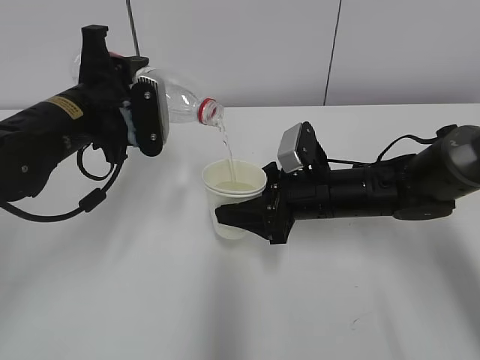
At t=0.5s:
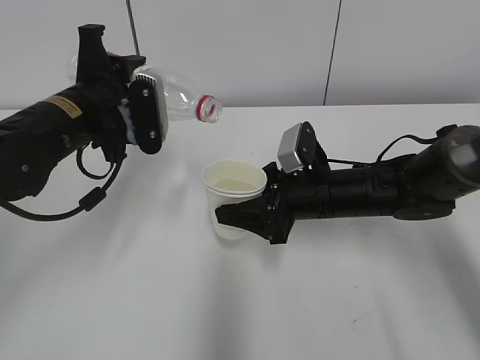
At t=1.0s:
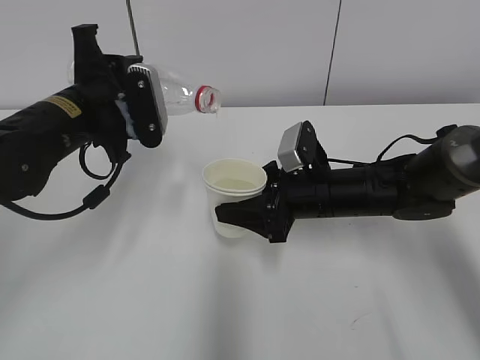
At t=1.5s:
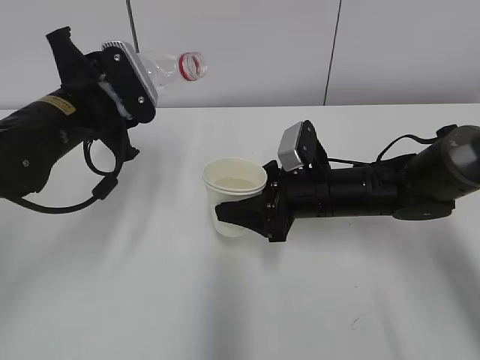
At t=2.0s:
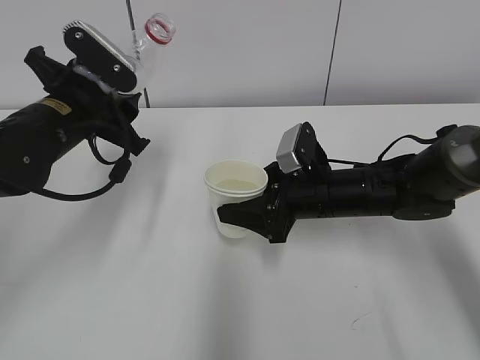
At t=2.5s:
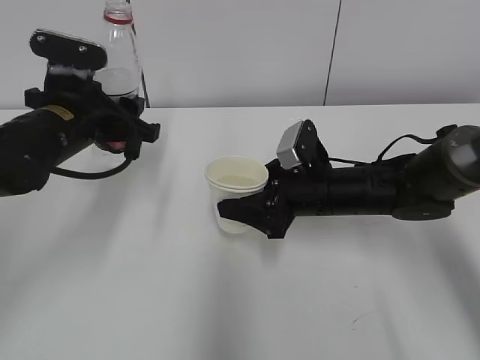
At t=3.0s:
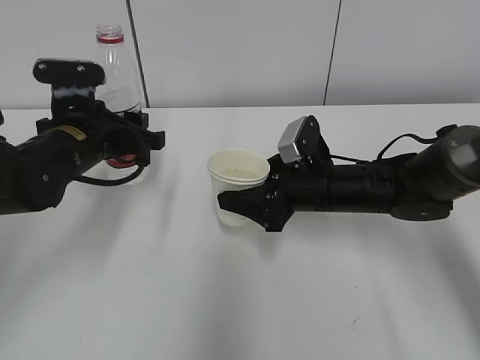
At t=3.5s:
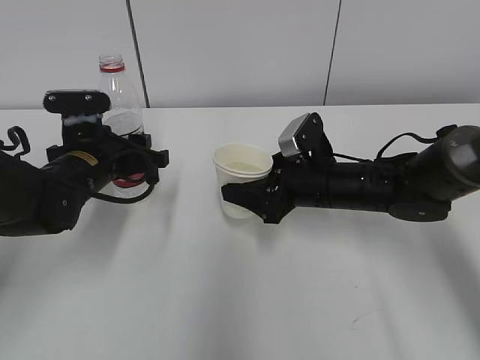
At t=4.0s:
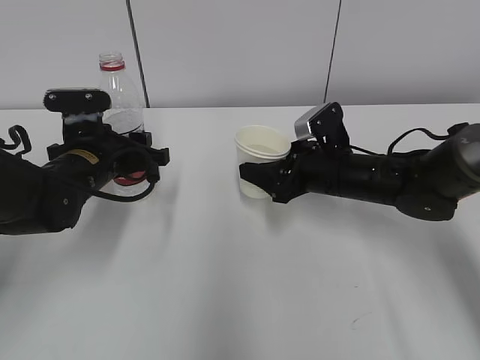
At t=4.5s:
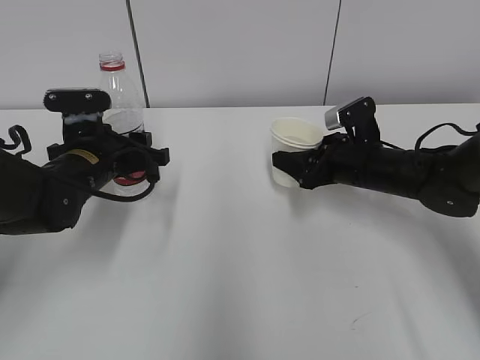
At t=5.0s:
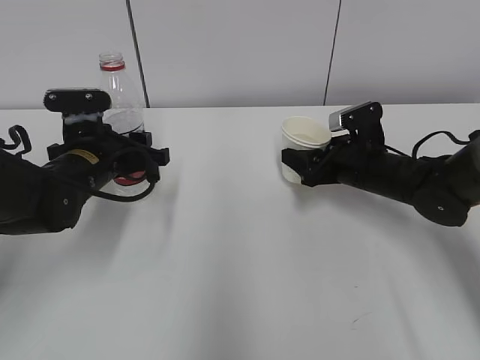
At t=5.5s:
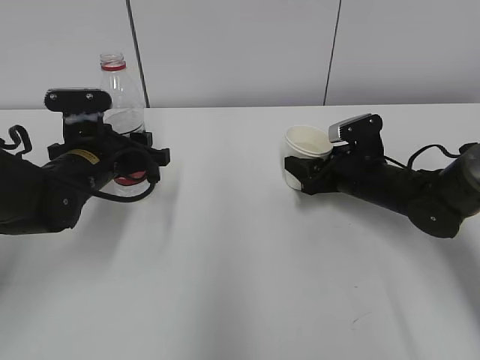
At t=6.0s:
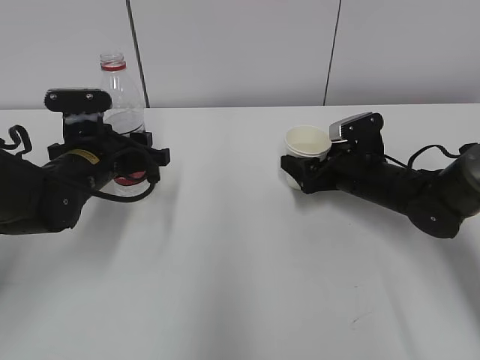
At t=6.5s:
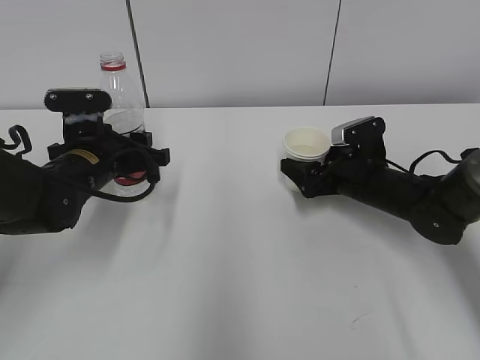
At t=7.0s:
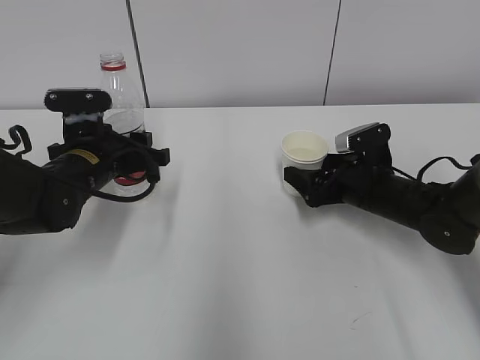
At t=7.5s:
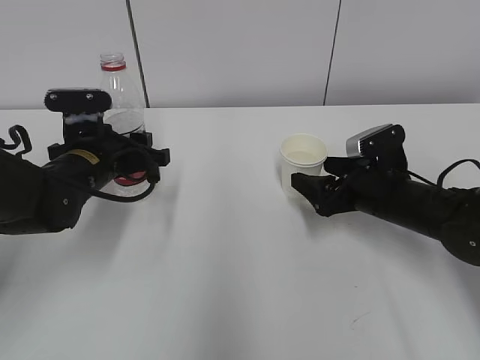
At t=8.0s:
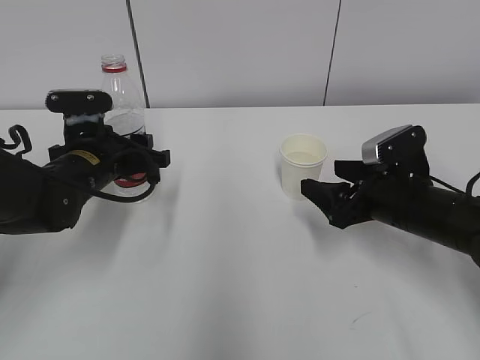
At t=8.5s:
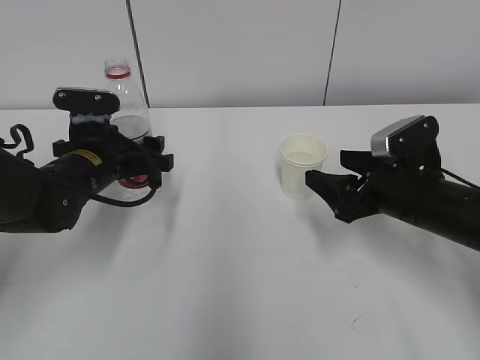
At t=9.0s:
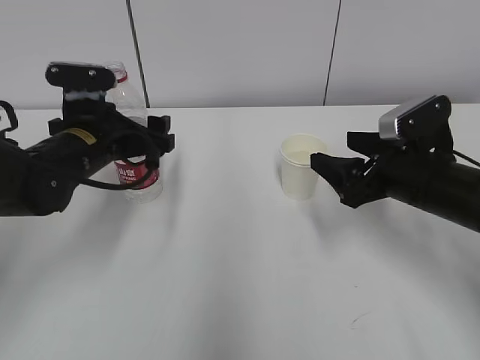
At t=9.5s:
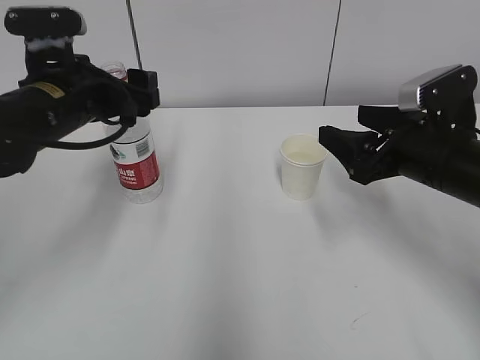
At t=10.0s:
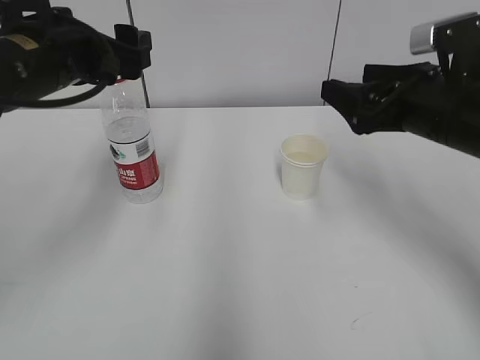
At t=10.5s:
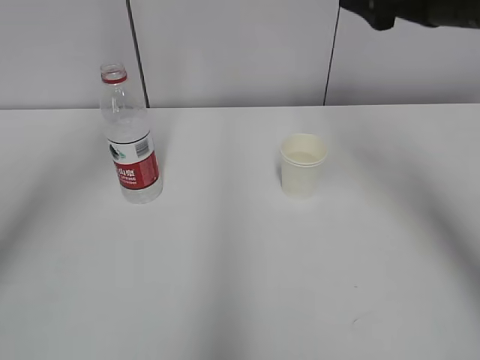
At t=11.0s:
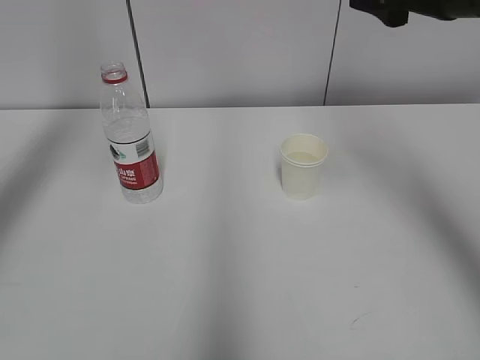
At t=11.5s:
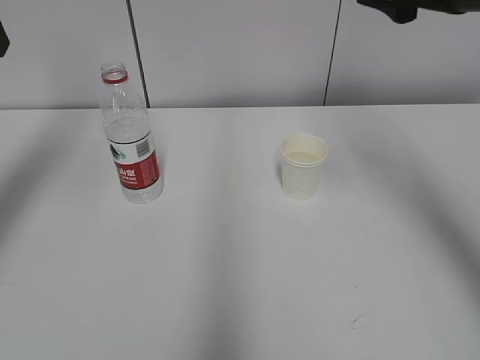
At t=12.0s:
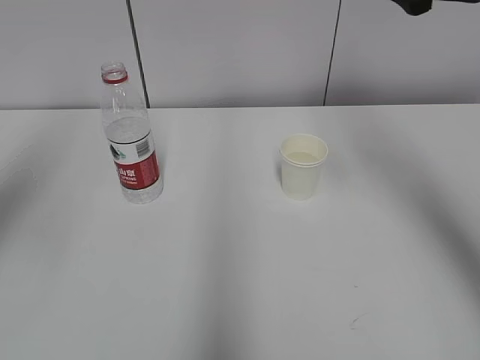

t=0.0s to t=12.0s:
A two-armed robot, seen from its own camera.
Step, t=0.0s to t=2.0s: Place the paper cup with the right hand.
Step, t=2.5s to t=3.5s: Place the water bottle with the left hand.
t=2.0s to t=4.0s: The left gripper moves downward, roughly 5 cm.
t=4.0s to t=6.0s: The right gripper moves to the right, some 5 cm, and opens its fingers.
t=6.0s to t=8.0s: The right gripper goes approximately 10 cm backward.
t=8.0s to t=10.0s: Both grippers travel together upward, about 15 cm. The left gripper opens.
t=10.0s to t=12.0s: The left gripper moves upward, to the left and backward, about 20 cm. The right gripper moves upward, some 15 cm.

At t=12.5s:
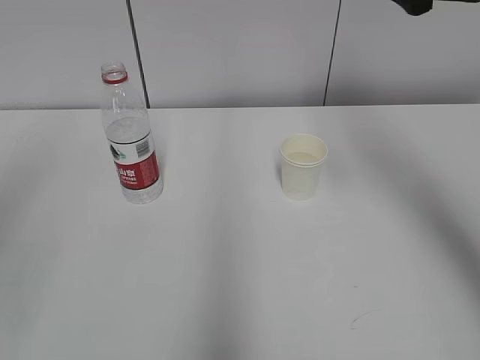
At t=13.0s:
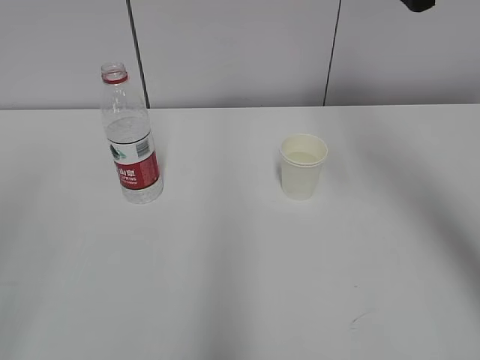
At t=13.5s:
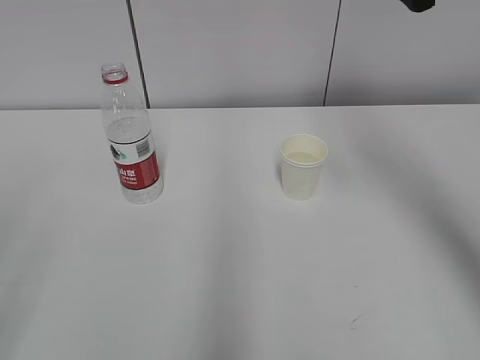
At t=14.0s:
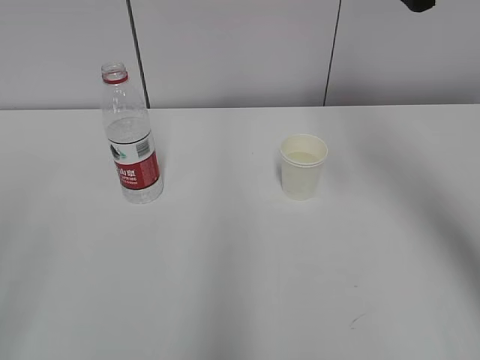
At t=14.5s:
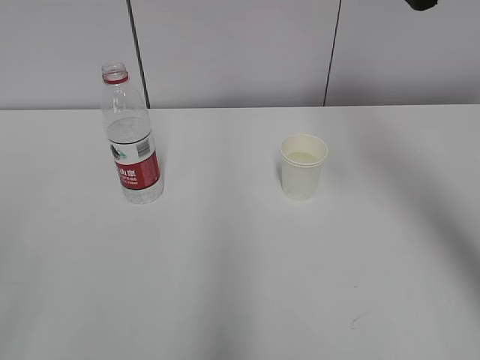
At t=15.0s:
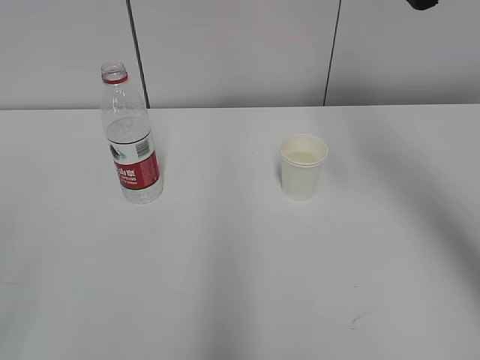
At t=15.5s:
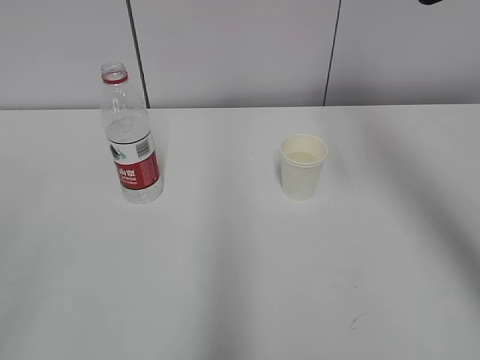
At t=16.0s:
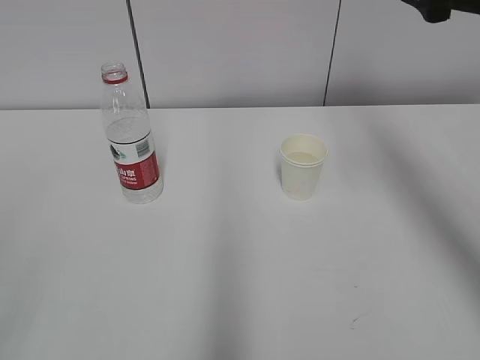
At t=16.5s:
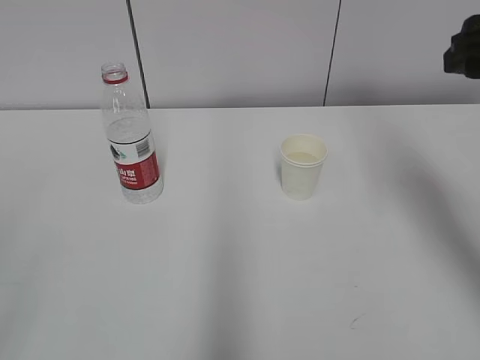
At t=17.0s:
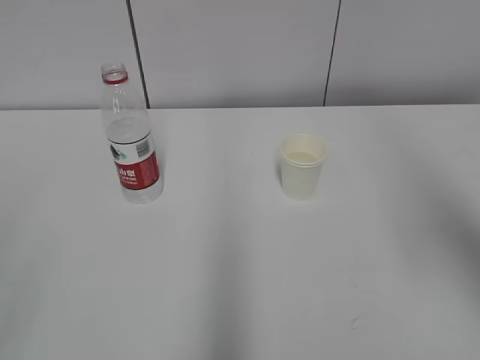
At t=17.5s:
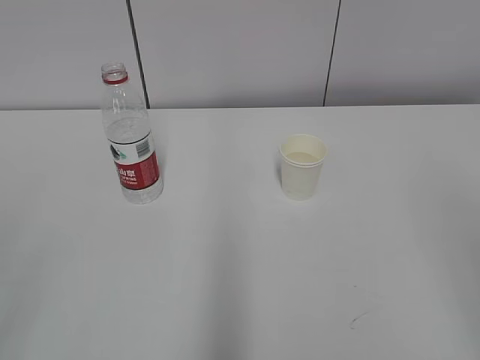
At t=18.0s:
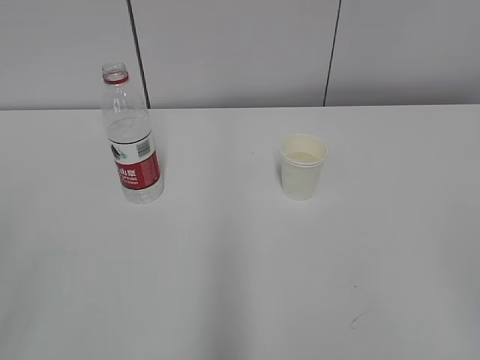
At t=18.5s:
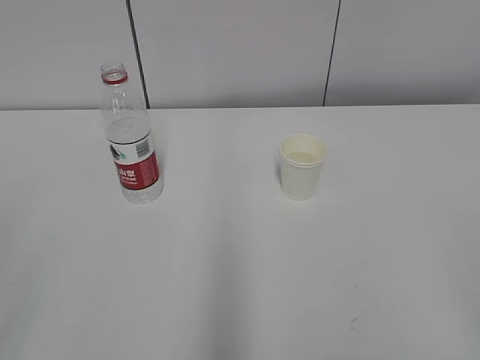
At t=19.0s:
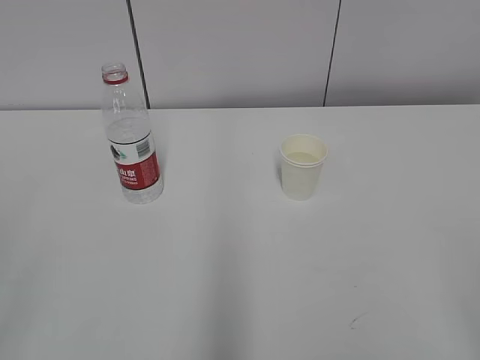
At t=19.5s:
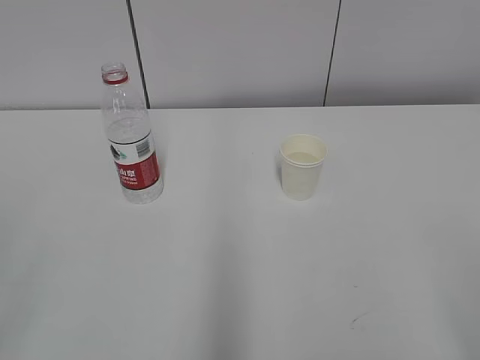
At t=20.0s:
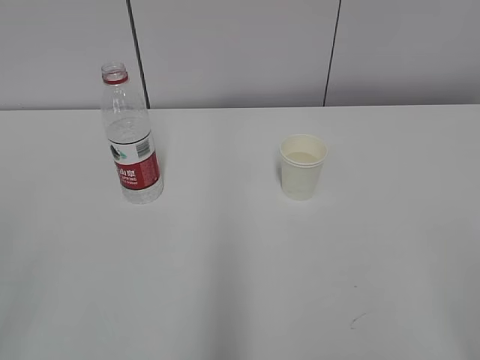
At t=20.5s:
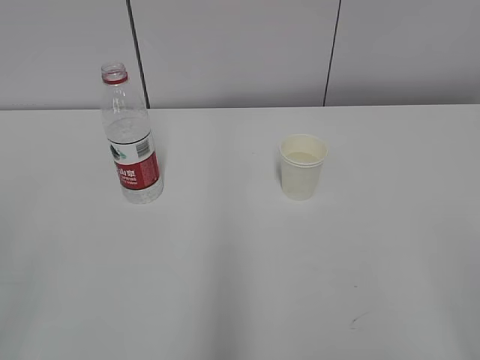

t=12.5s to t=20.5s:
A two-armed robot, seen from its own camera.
t=14.5s to t=16.5s: The right gripper moves roughly 5 cm.
t=16.5s to t=18.5s: The right gripper shifts about 30 cm backward.
